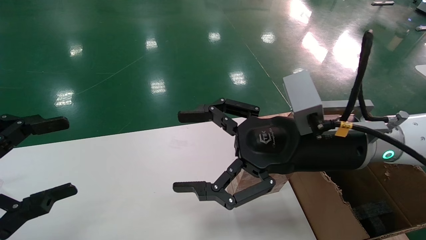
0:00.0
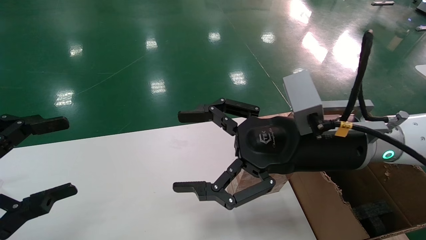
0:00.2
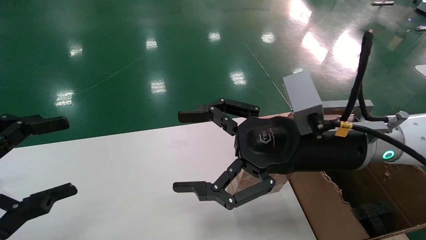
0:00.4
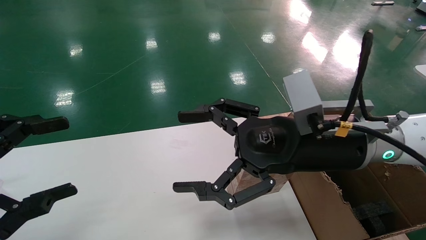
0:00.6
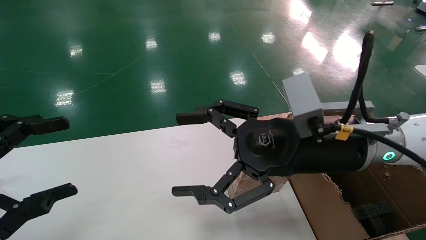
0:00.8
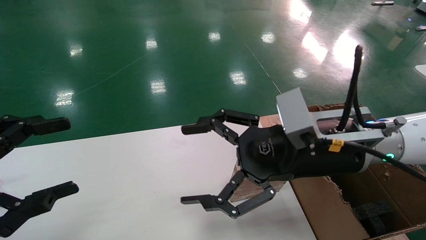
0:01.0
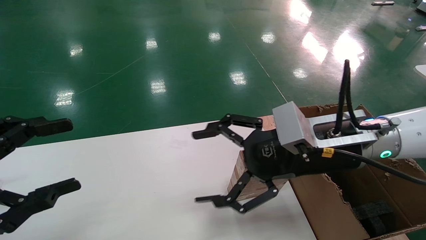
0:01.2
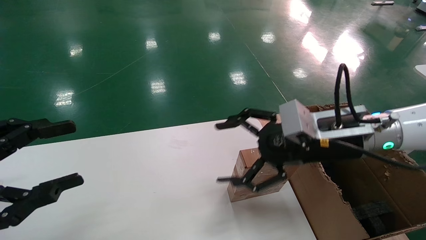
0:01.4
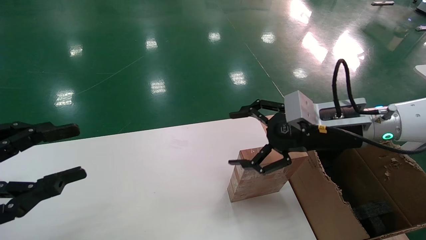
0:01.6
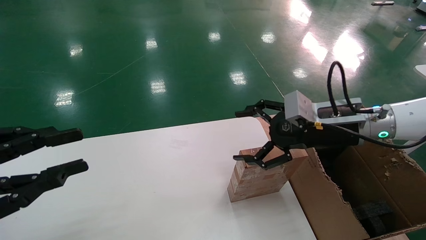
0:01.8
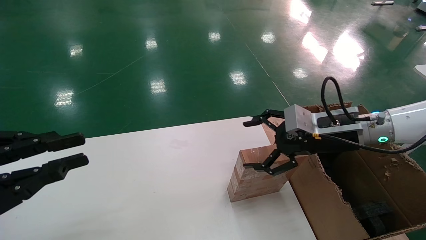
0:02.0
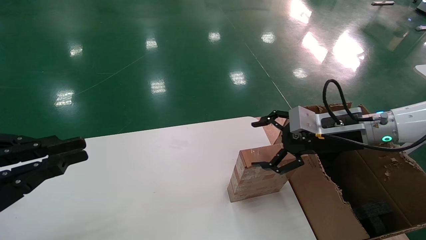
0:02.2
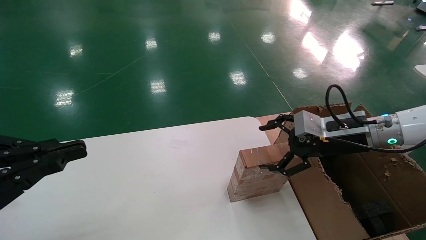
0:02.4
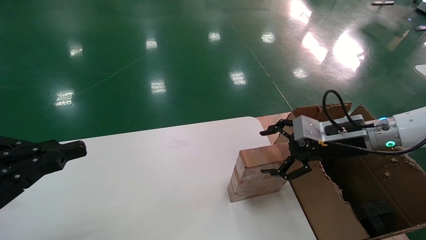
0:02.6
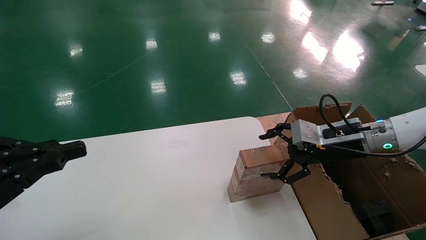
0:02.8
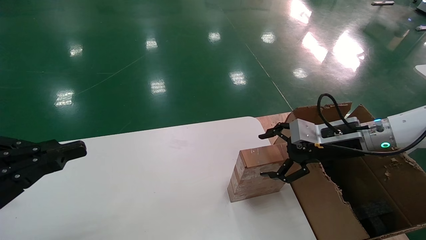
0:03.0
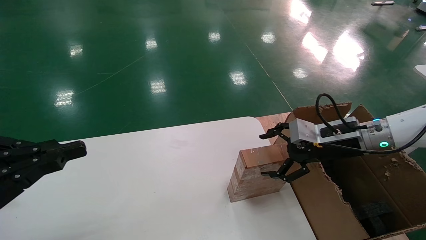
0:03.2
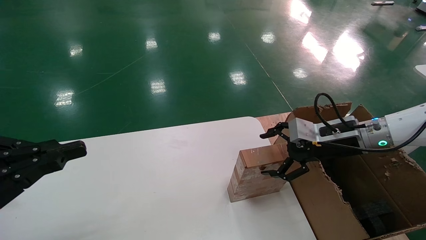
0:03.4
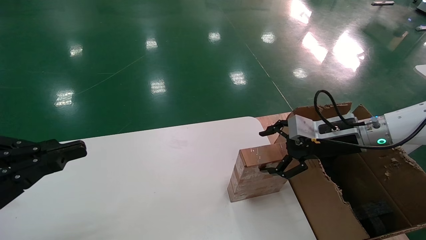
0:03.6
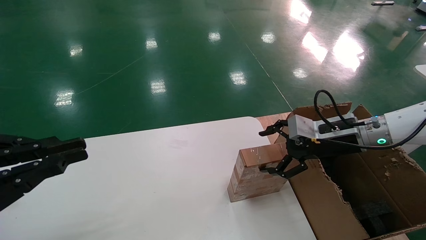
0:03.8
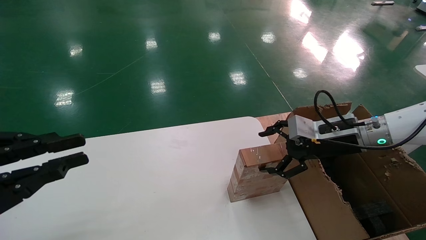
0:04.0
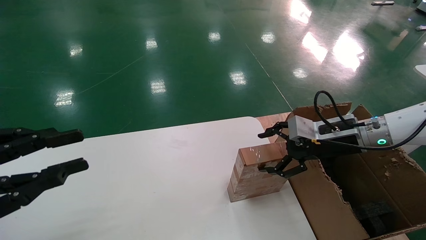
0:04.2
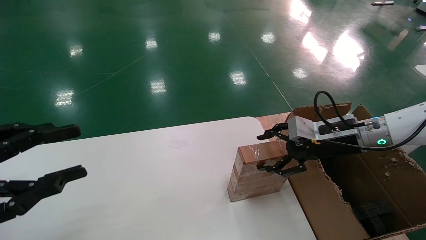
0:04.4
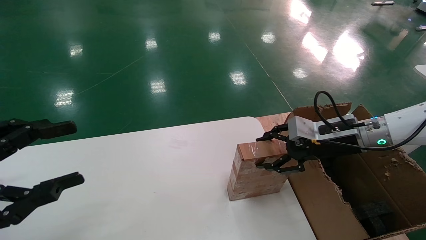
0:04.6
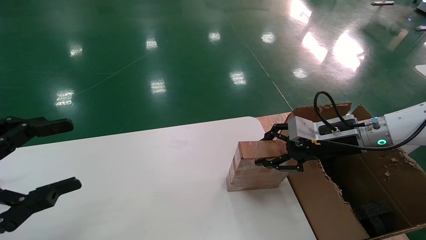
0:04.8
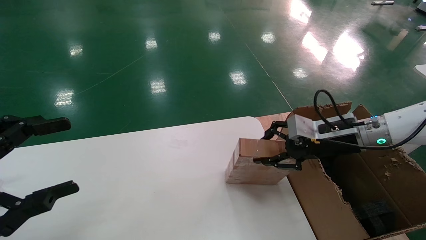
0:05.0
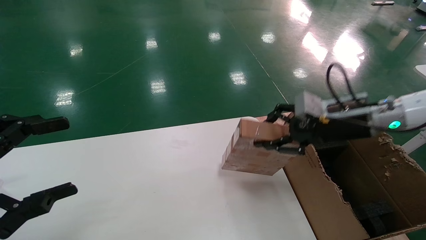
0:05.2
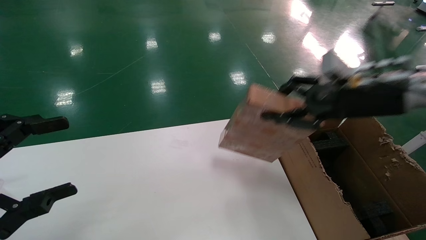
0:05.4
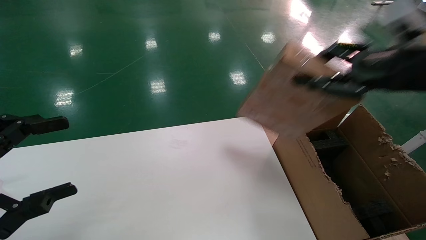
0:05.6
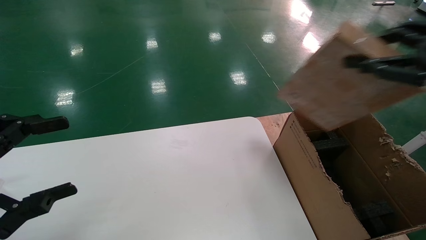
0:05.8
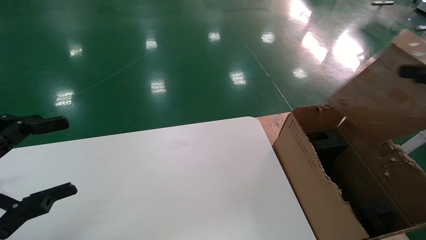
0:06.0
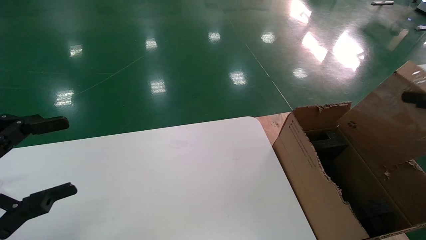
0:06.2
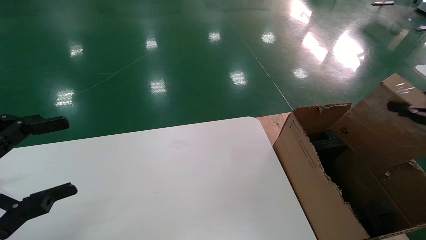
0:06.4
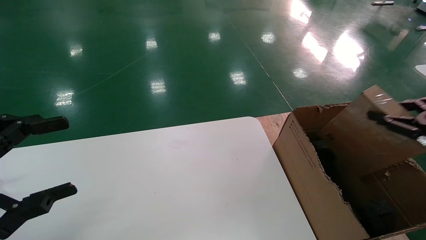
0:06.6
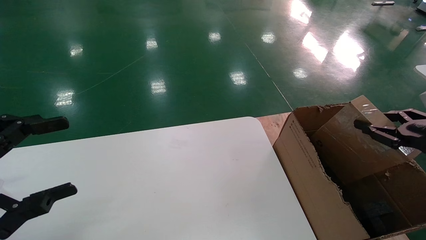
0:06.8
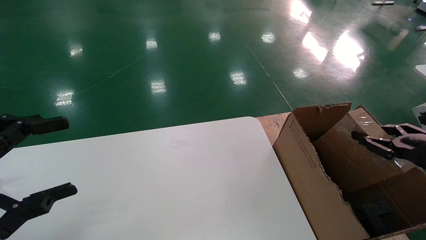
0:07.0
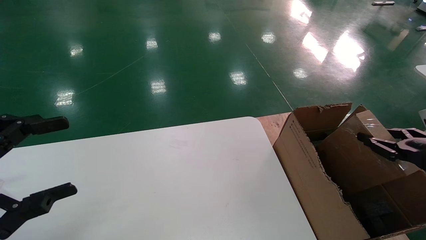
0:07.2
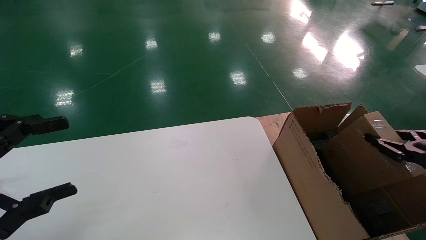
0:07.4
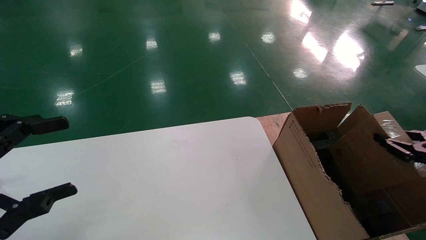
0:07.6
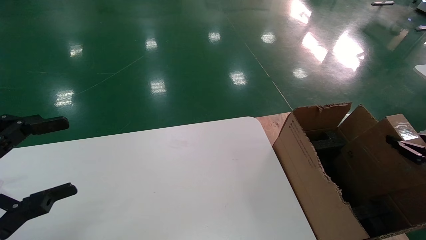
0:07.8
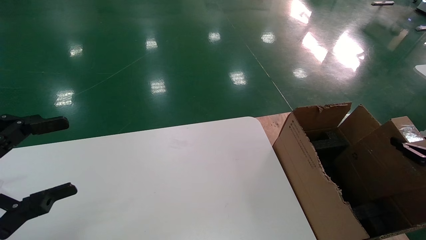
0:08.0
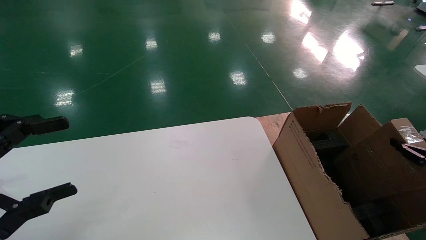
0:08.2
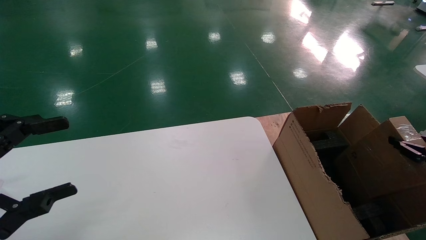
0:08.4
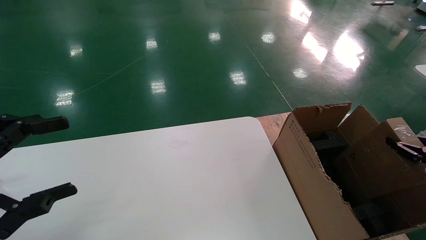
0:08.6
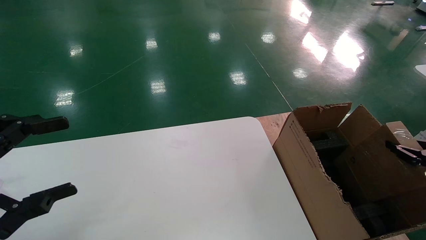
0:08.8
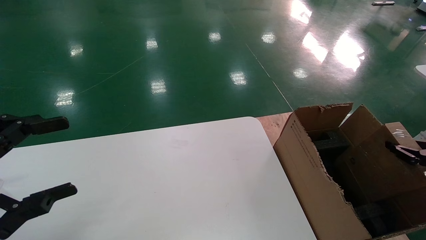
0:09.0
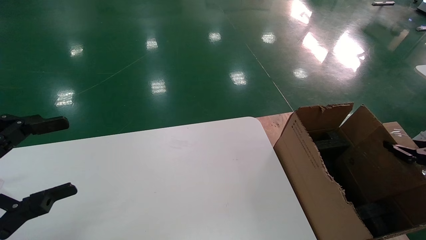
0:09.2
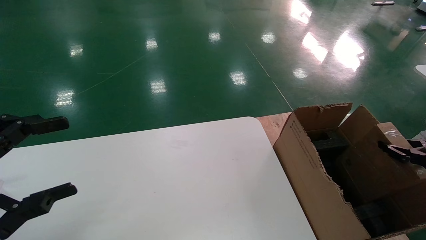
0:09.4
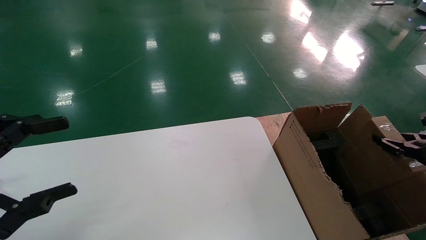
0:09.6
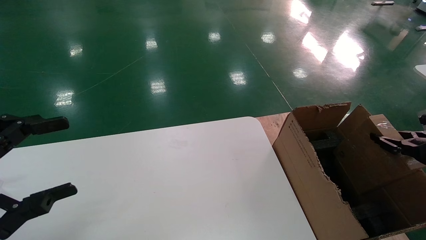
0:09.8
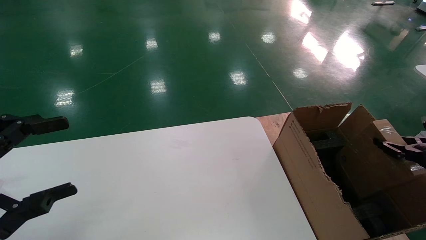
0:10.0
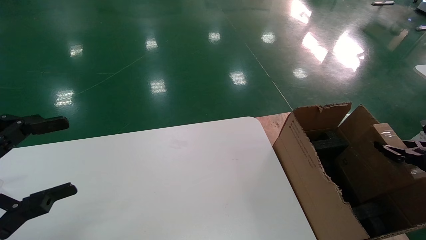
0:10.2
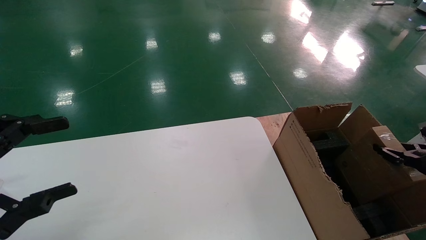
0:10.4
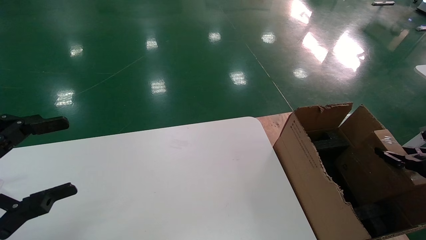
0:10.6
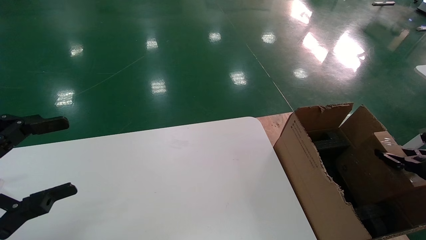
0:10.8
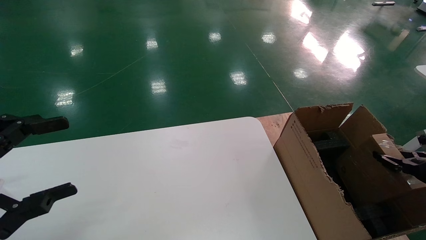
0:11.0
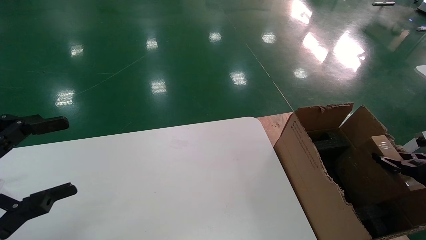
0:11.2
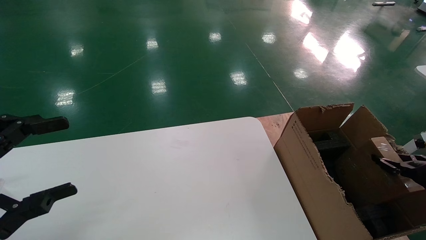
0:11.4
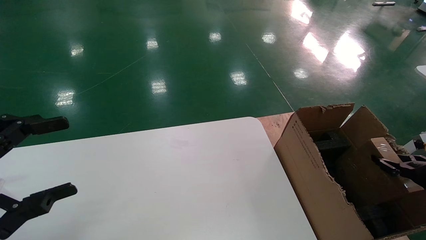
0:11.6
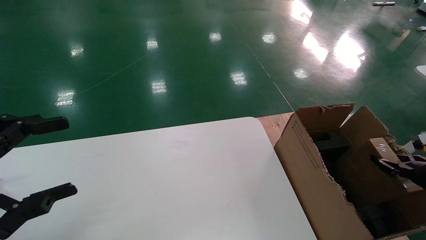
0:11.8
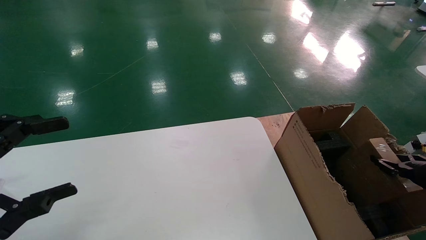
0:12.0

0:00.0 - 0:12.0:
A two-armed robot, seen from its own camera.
Task of the whole recording: put the box on the table into the big box.
Step, 0:01.0 - 0:05.2: Pick up the mouse and the power cord paper box.
0:00.0 - 0:01.6: The right gripper heads to the right and forward, covering approximately 10 cm.
0:01.6 - 0:03.0: The left gripper closes up. The right gripper goes about 10 cm to the right and downward.
0:03.0 - 0:04.4: The left gripper opens up.
0:04.4 - 0:06.0: The left gripper opens its fingers; the right gripper heads backward, upward and to the right, covering some 30 cm, and closes up.
0:06.0 - 0:07.6: The right gripper goes approximately 20 cm downward.
0:07.6 - 0:09.0: The right gripper changes place by some 5 cm.
0:09.0 - 0:10.4: The grippers make only small movements.
0:10.4 - 0:12.0: The grippers make only small movements.

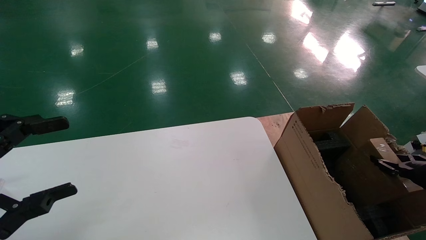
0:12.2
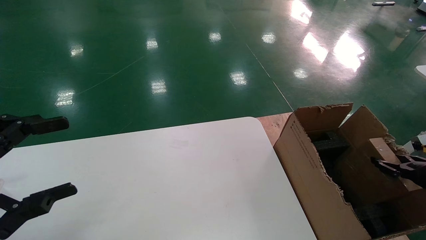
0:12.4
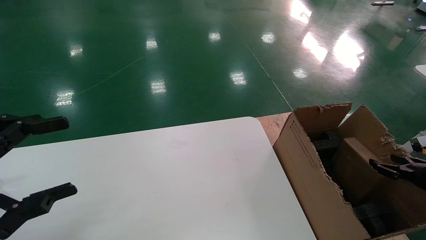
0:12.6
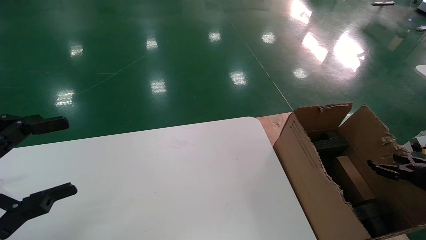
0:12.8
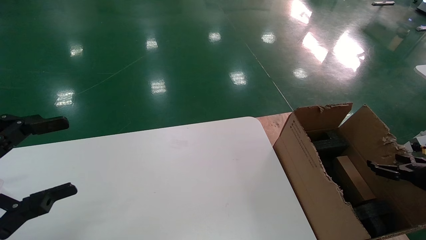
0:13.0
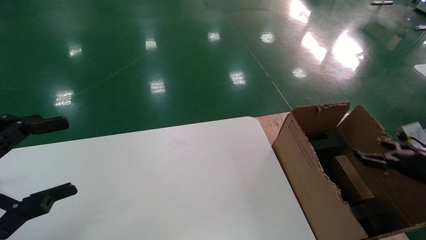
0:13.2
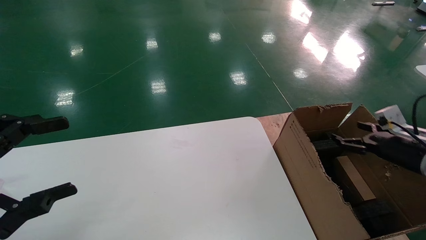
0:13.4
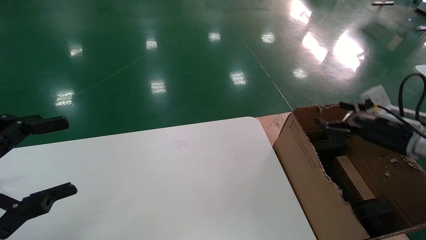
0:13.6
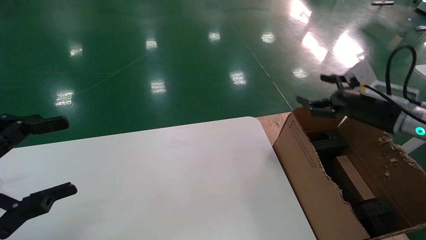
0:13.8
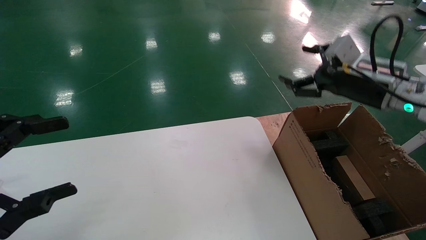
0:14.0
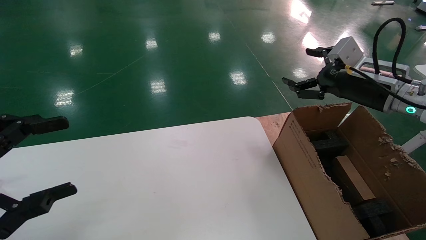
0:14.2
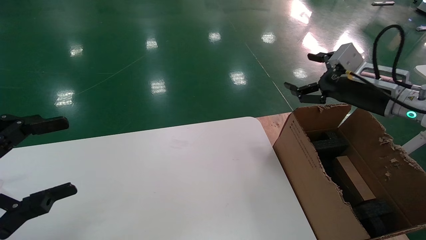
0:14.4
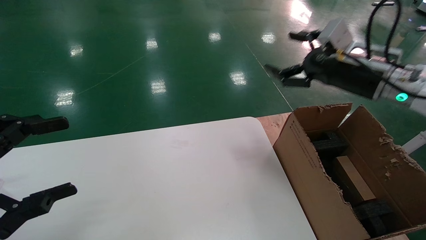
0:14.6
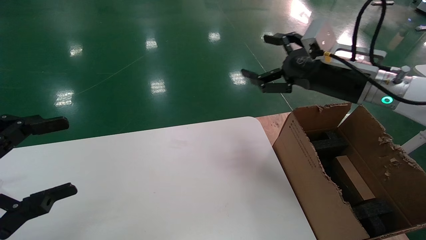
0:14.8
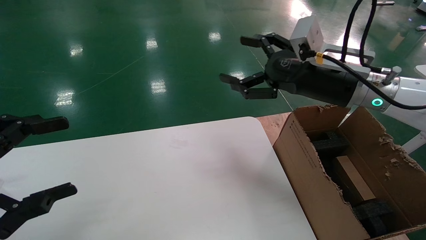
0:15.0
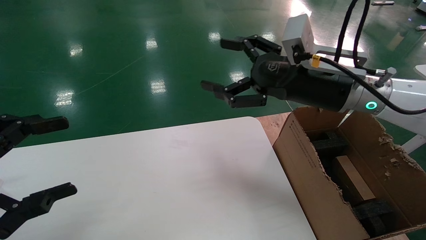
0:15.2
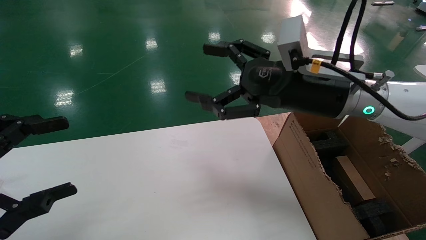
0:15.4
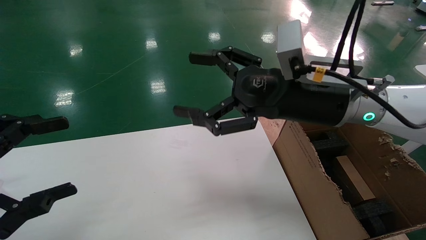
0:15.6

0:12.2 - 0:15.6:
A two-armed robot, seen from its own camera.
Task of the whole recording: put the box on the table into the big box.
0:12.2 - 0:13.8: The right gripper heads upward, to the left and forward, covering approximately 20 cm, and opens up.
0:13.8 - 0:15.6: The right gripper heads to the left, covering approximately 25 cm.
